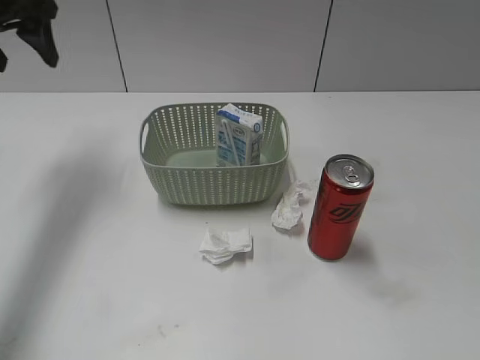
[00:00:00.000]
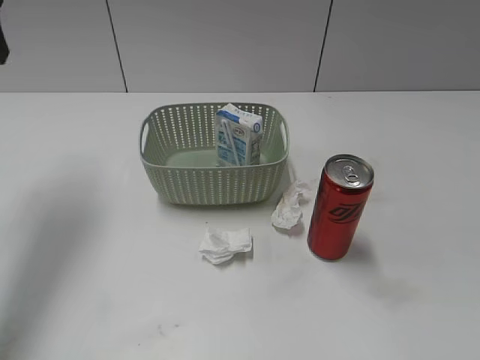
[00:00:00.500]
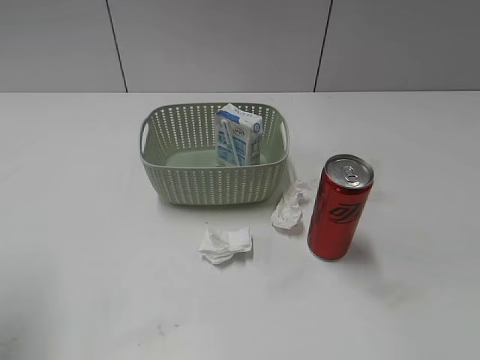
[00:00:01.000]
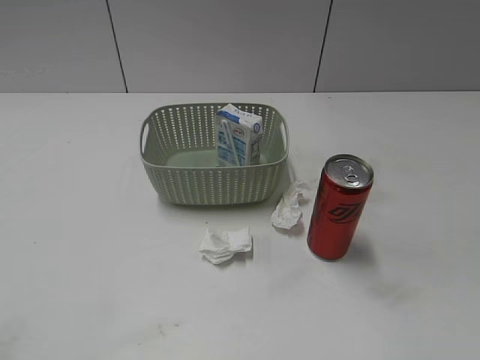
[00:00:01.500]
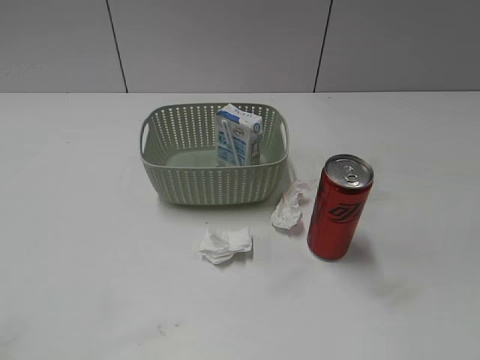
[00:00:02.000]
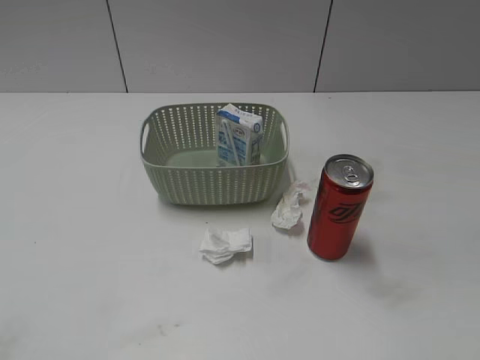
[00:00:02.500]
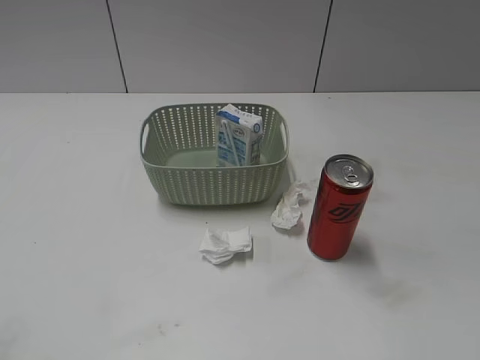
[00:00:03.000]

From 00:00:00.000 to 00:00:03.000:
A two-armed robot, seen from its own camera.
From 00:00:00.000 to 00:00:01.500: The left gripper moves backward, some 35 cm.
